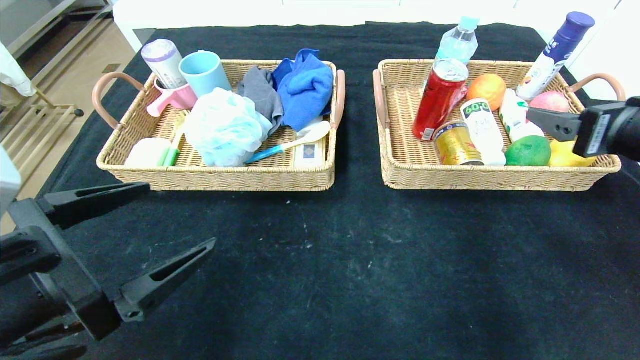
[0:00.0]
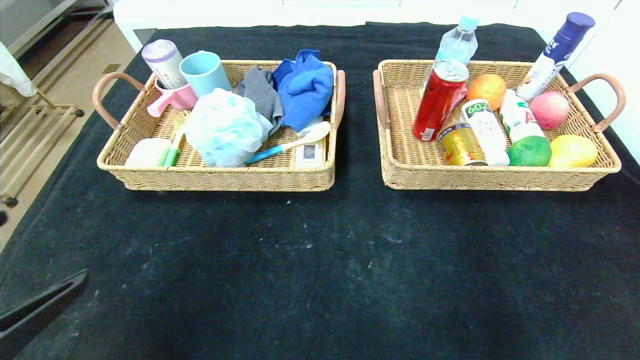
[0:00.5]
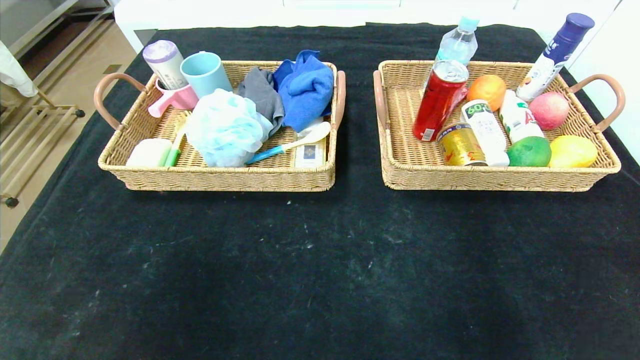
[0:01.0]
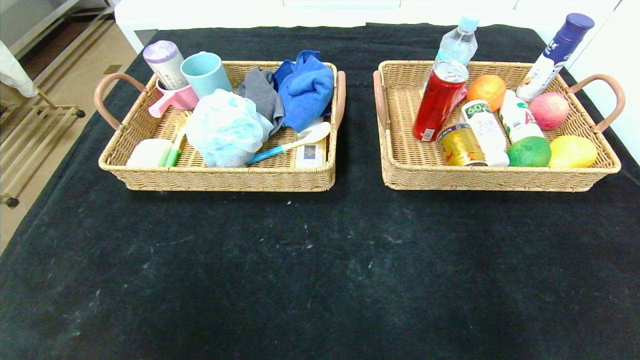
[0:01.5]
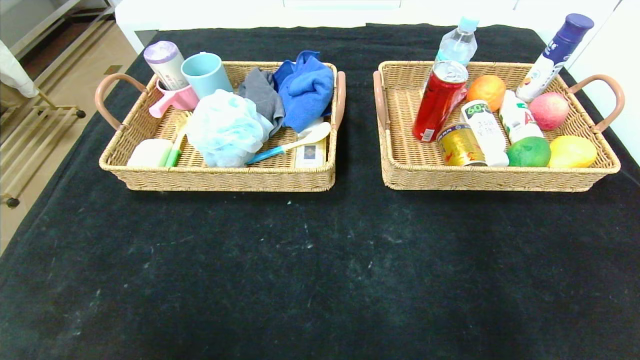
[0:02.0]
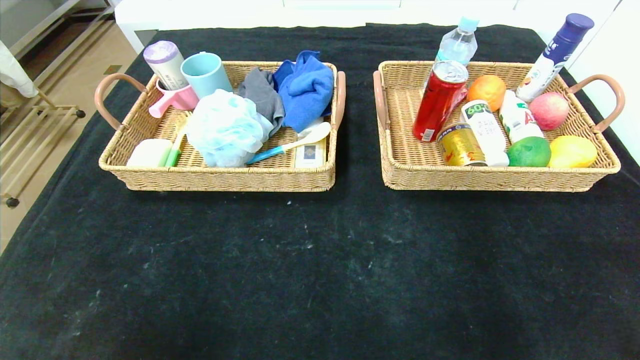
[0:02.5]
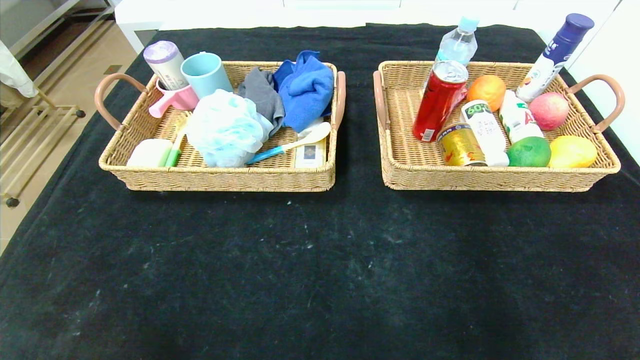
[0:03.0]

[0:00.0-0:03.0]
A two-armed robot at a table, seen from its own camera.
0:00.0 to 0:01.5: Both grippers travel together backward, about 30 cm.
